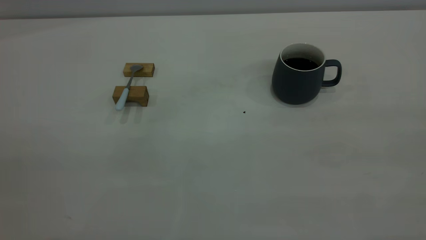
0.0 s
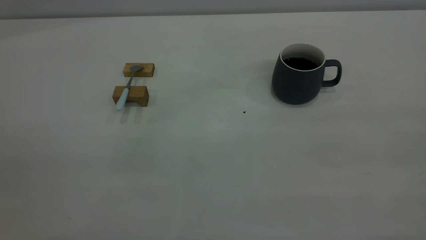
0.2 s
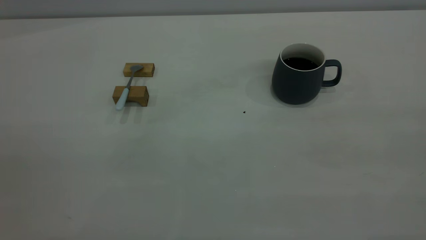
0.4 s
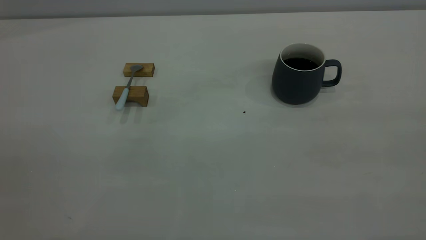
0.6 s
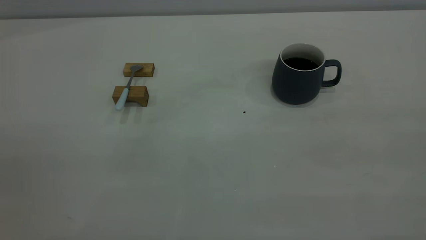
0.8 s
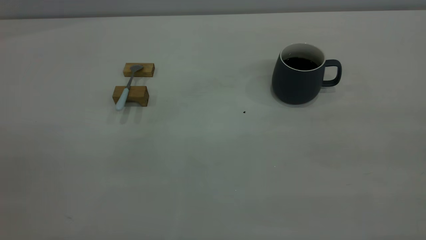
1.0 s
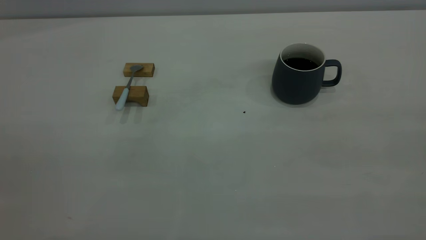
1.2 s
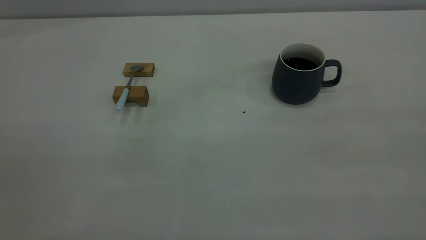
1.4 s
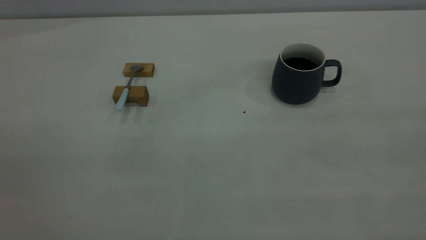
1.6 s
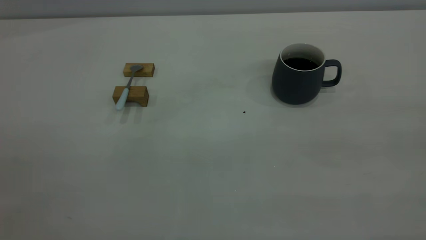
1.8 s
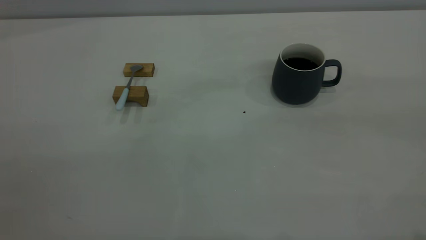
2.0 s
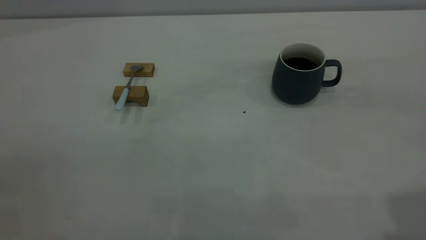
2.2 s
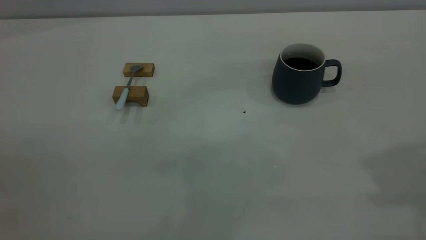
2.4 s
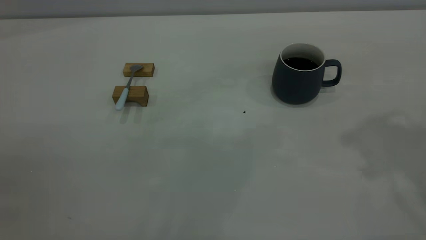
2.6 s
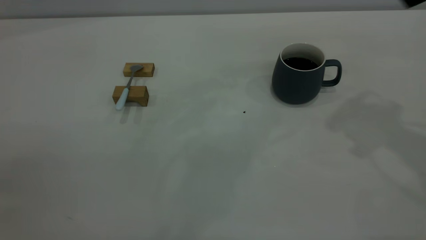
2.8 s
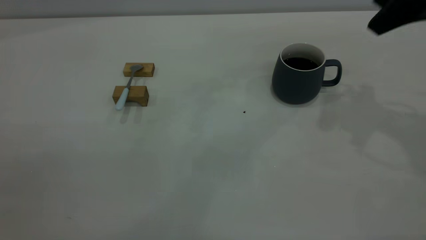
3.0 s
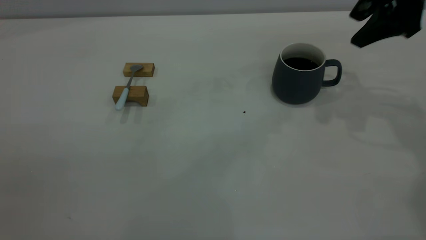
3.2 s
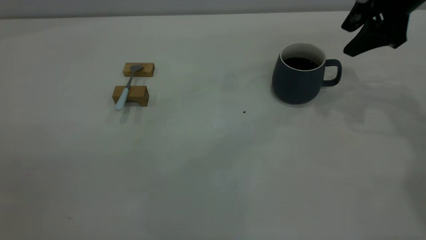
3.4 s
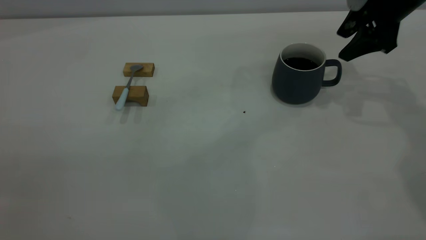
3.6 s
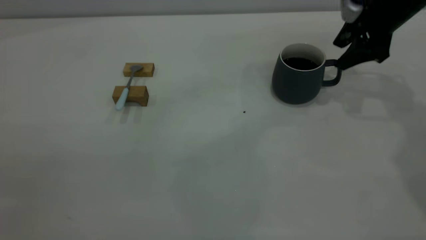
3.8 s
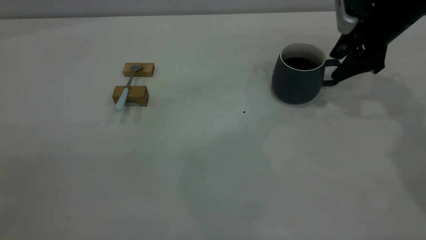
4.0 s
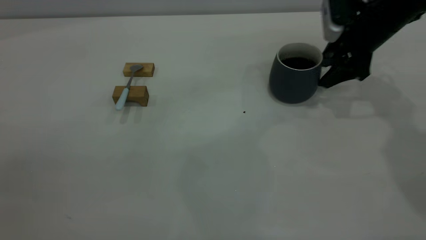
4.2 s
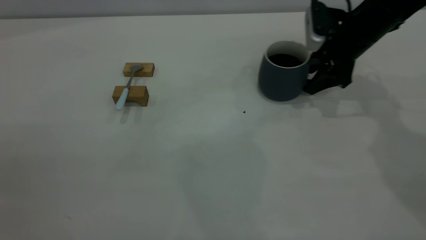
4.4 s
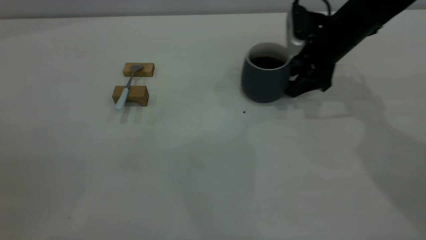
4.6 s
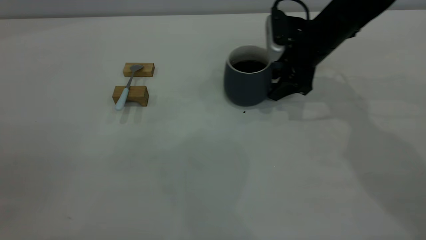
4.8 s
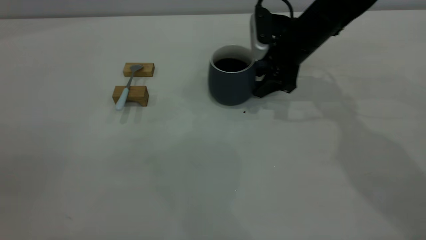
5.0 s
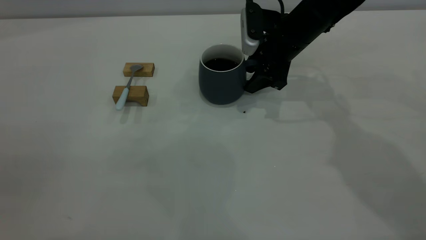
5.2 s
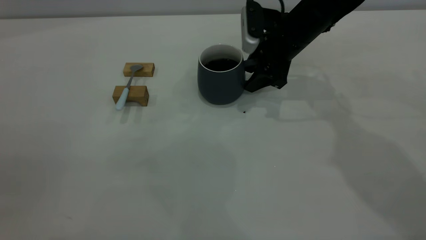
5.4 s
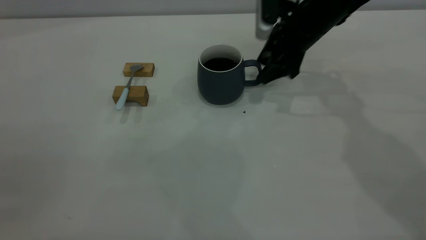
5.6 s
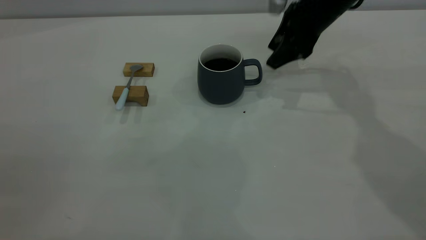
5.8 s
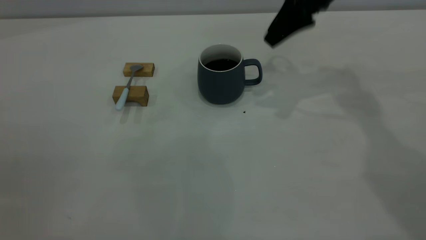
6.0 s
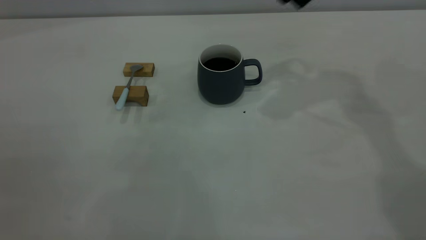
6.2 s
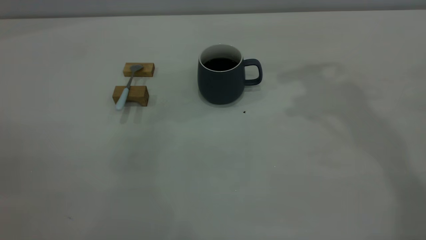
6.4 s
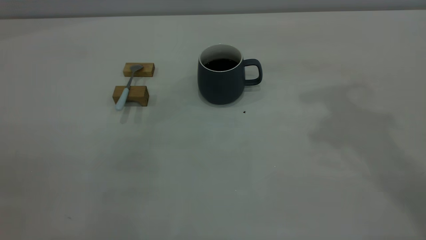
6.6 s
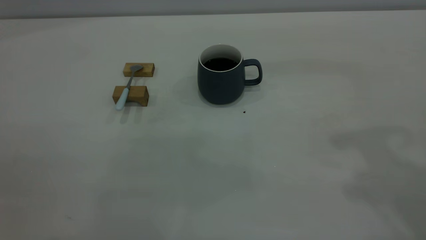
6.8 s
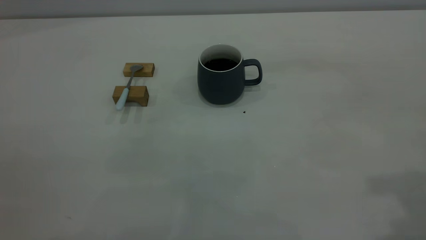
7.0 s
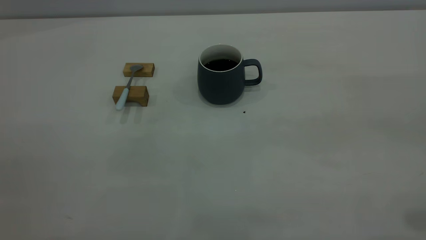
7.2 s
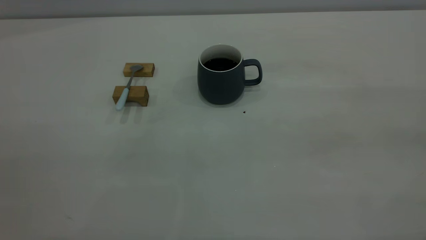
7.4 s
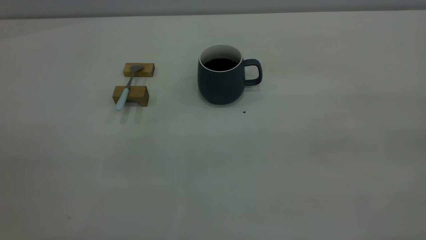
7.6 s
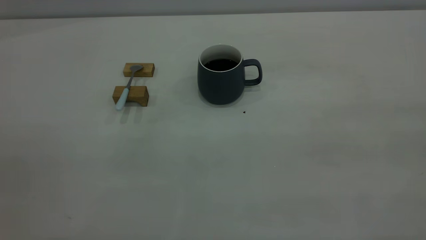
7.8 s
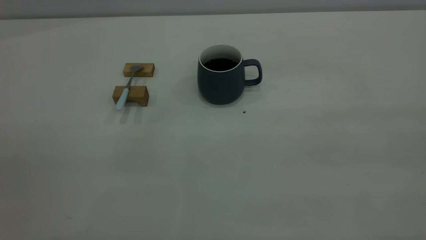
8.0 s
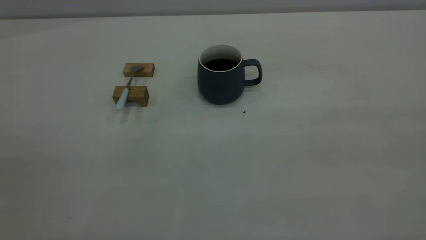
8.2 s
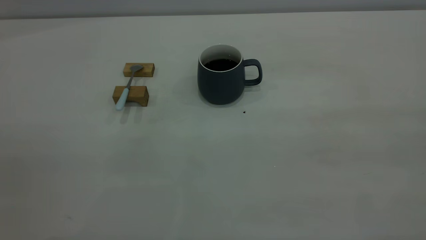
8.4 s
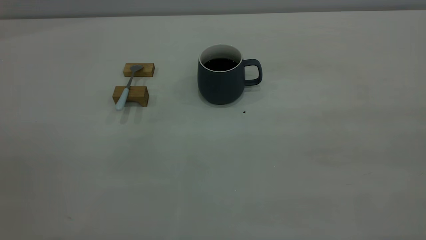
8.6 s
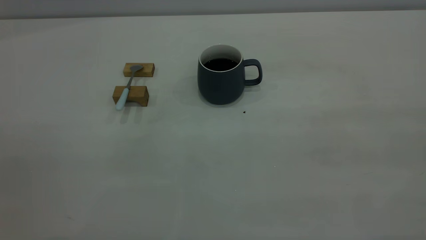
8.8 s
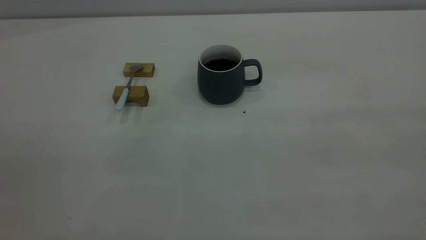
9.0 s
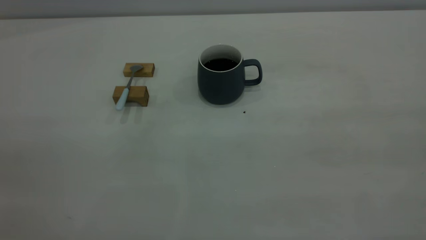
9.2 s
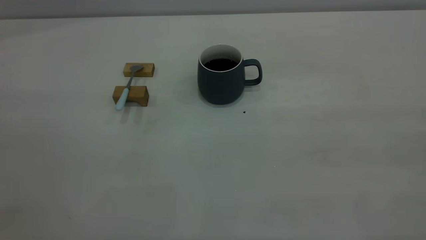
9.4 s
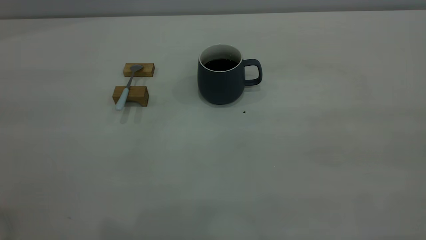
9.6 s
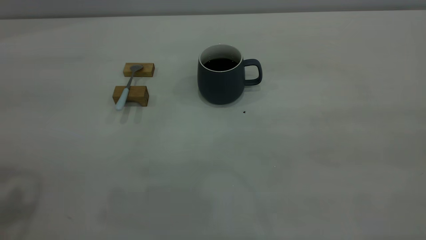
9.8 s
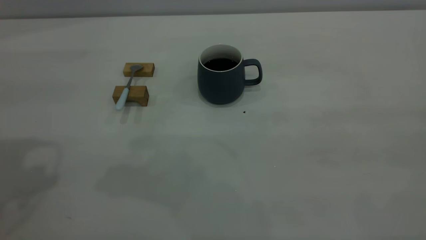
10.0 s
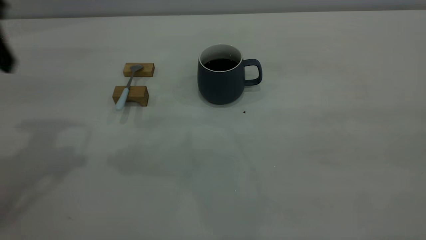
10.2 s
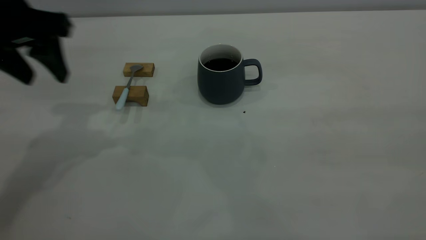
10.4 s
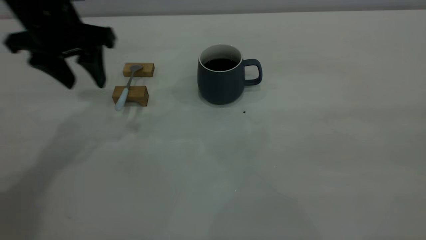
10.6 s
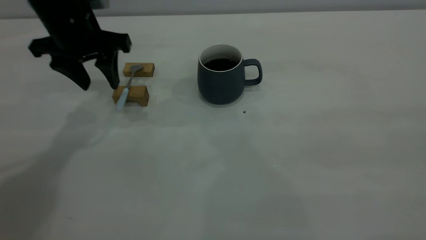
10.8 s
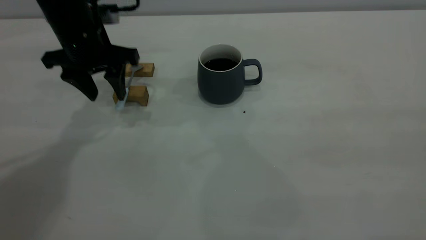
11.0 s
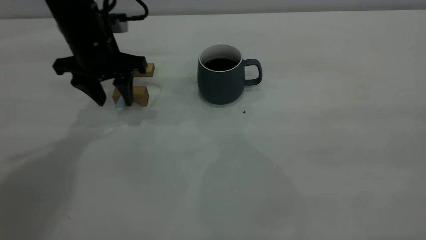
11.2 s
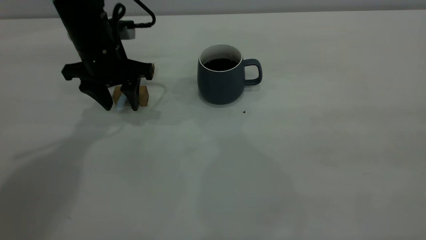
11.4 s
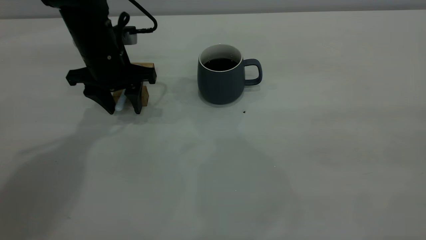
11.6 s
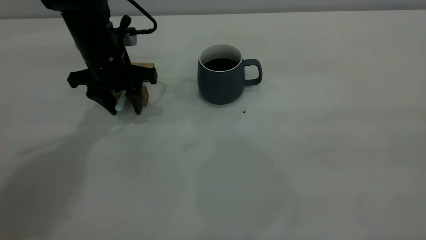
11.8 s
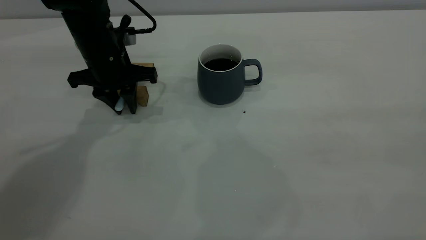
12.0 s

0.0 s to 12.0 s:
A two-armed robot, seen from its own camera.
Step, 0.0 to 6.0 s: Move the cup with coffee to the center of view.
0.0 to 1.6 s: Both grippers stay put.
1.6 to 3.0 s: The right gripper is displaced forward by roughly 35 cm, and opens its fingers.
3.0 to 4.4 s: The right gripper travels downward and forward by roughly 20 cm.
4.4 to 6.0 s: The right gripper is displaced upward and to the left by roughly 15 cm, and closes up.
6.0 to 7.6 s: The right gripper shifts roughly 40 cm backward.
9.0 to 10.4 s: The left gripper goes about 35 cm forward.
10.4 to 12.0 s: The left gripper travels downward, forward and to the right by roughly 15 cm, and closes up.

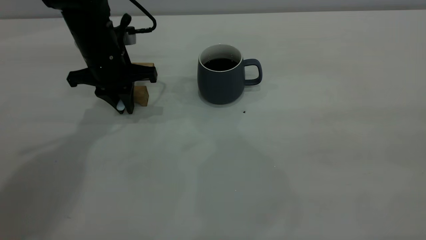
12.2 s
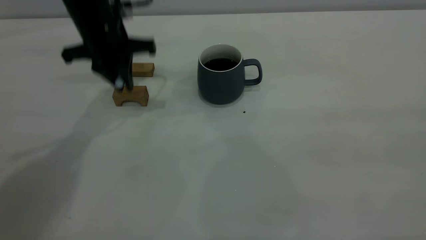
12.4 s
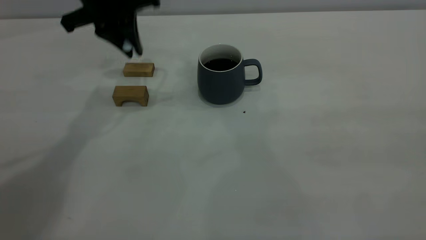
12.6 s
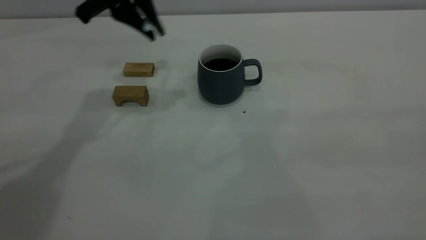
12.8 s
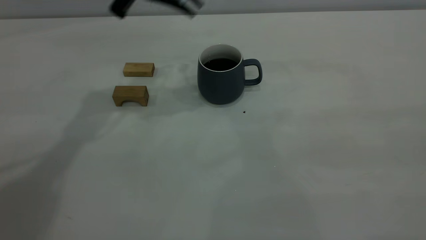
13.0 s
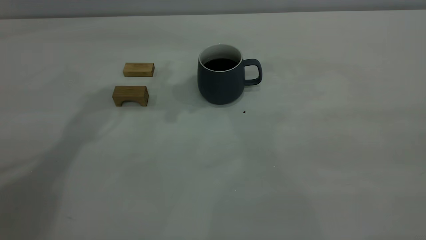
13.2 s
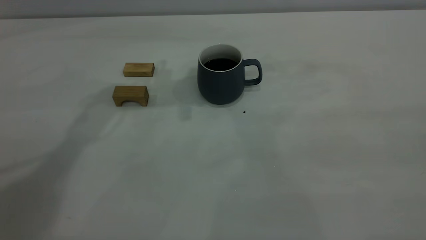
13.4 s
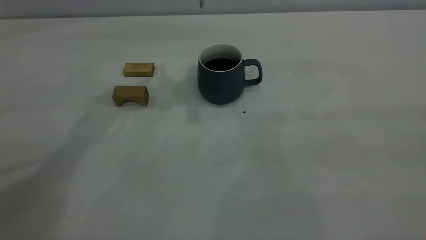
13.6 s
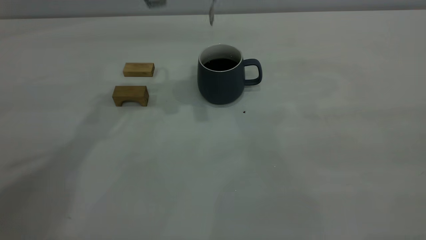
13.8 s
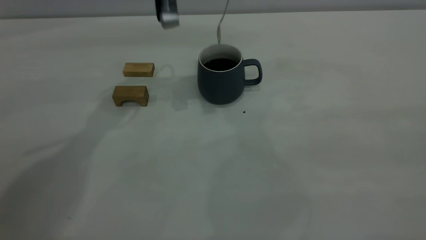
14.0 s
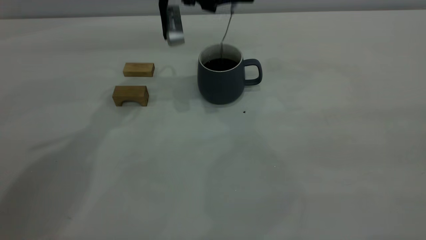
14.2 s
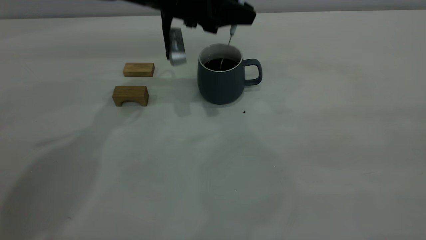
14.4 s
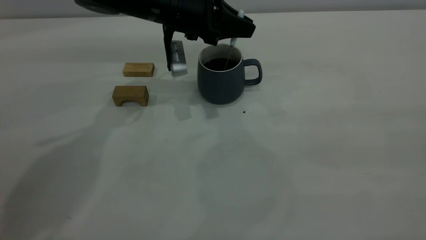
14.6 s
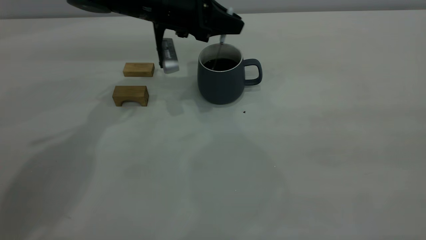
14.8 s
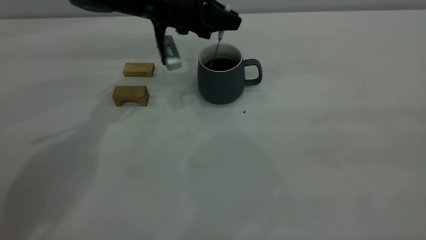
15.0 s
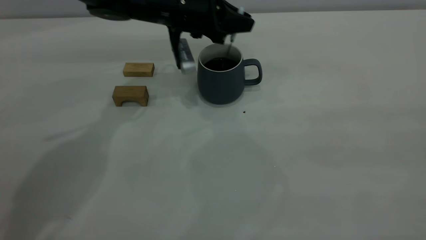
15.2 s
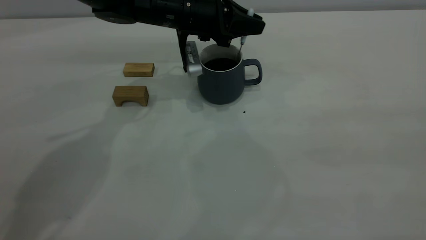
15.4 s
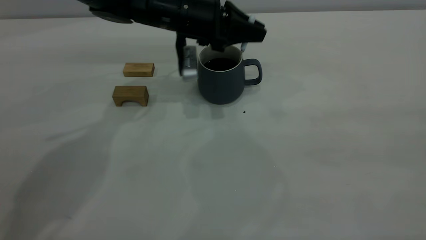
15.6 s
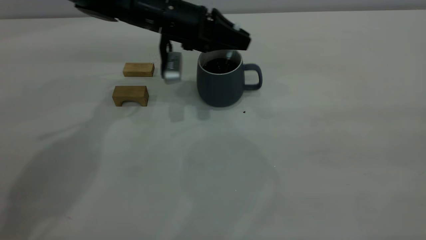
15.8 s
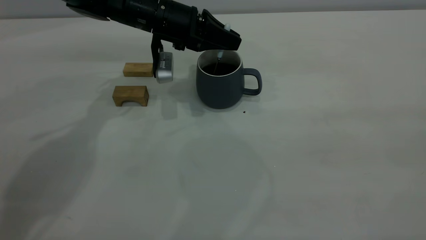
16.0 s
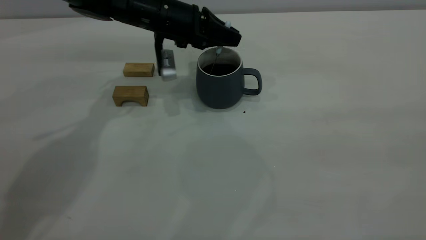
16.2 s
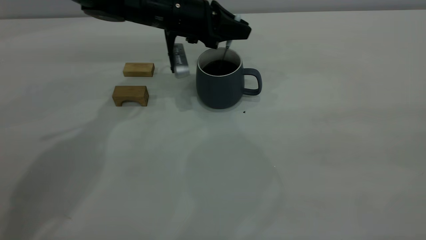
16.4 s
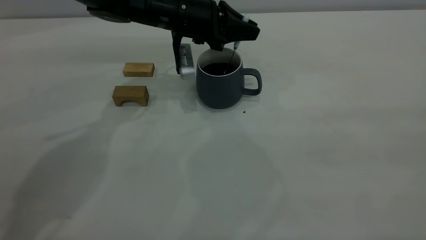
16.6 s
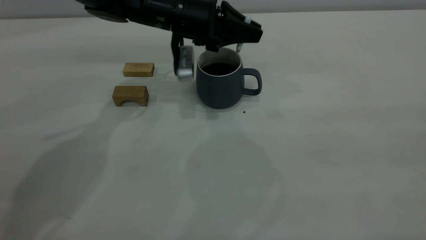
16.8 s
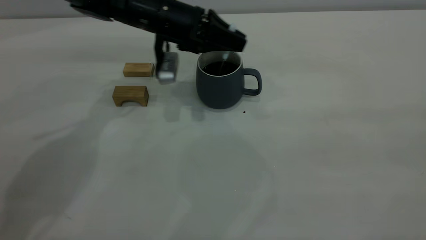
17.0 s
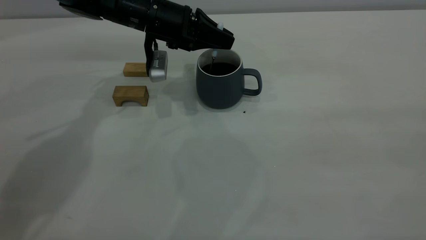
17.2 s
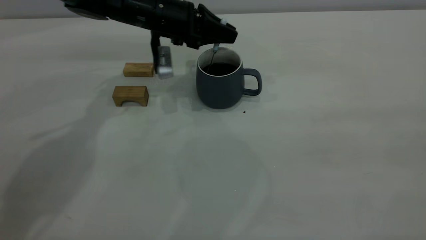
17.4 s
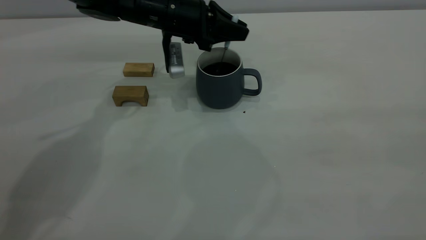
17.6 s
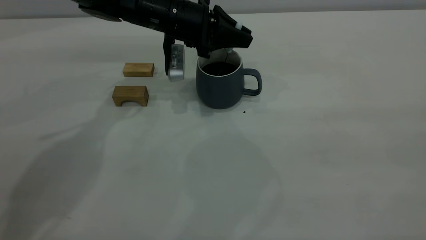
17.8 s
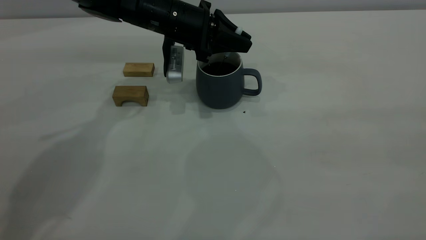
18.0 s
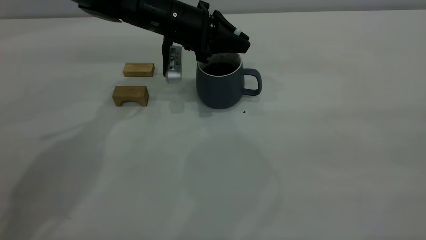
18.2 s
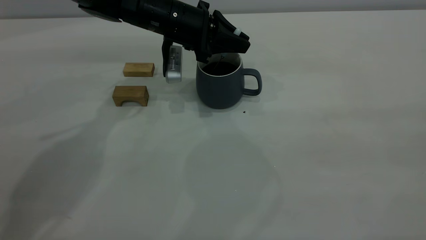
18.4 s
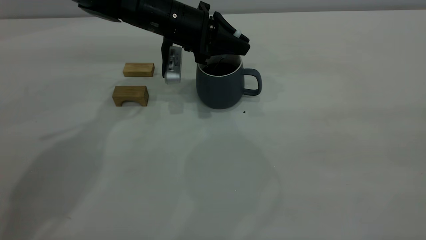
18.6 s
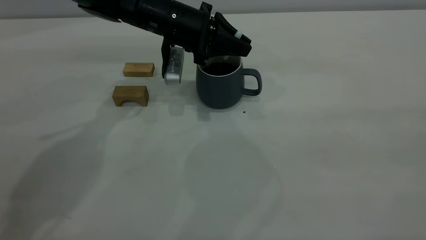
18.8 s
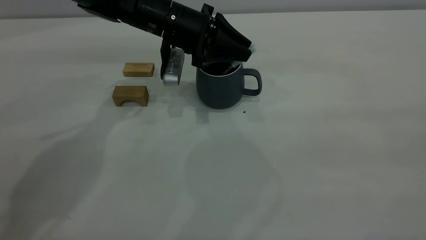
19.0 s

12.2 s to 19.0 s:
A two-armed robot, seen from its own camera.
12.2 to 13.6 s: The left gripper moves upward and to the right, some 20 cm.
13.6 to 15.0 s: The left gripper goes about 15 cm downward.
15.0 to 17.6 s: The grippers move only a little.
17.6 to 19.0 s: The left gripper opens its fingers.
